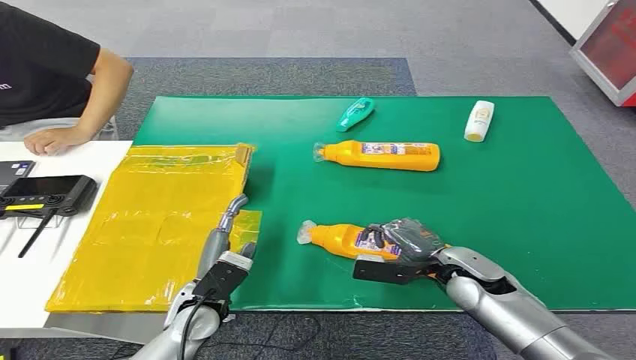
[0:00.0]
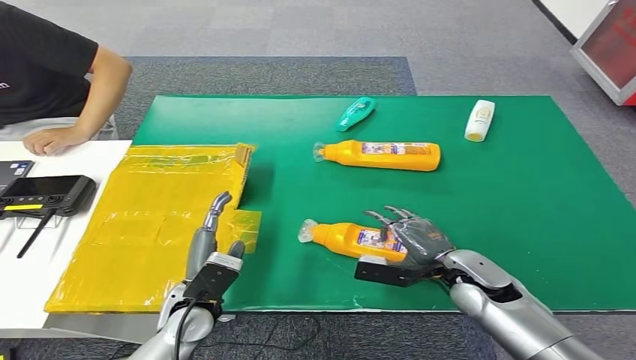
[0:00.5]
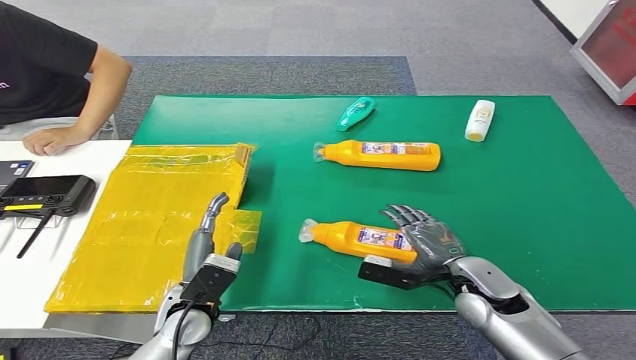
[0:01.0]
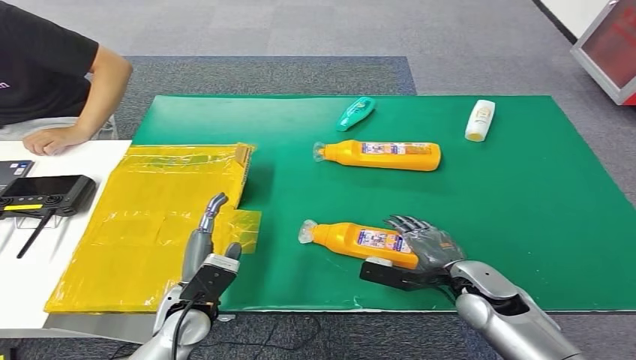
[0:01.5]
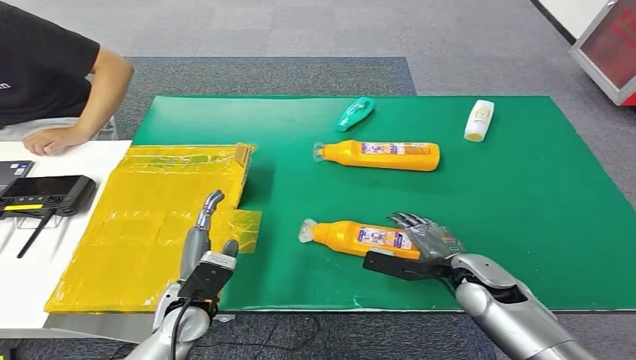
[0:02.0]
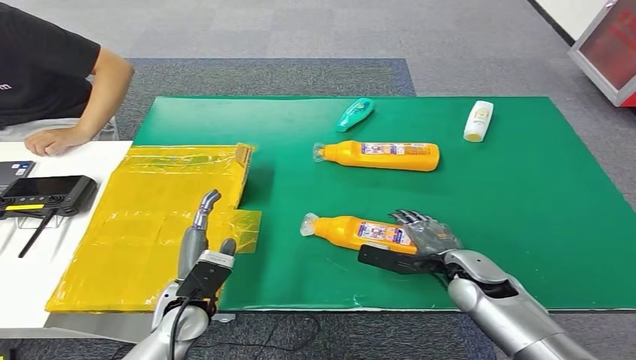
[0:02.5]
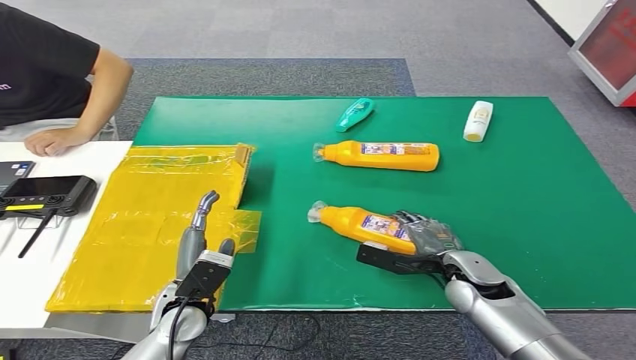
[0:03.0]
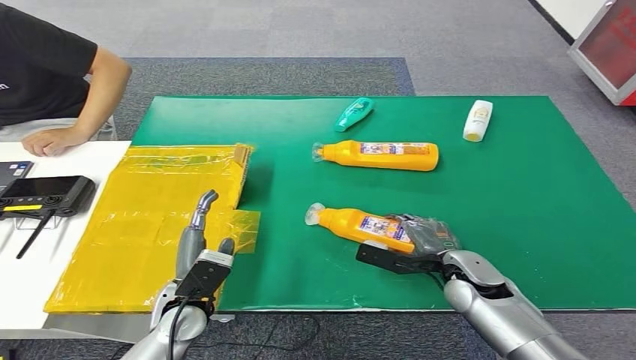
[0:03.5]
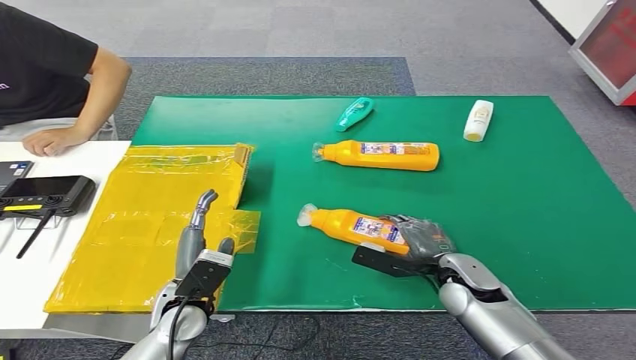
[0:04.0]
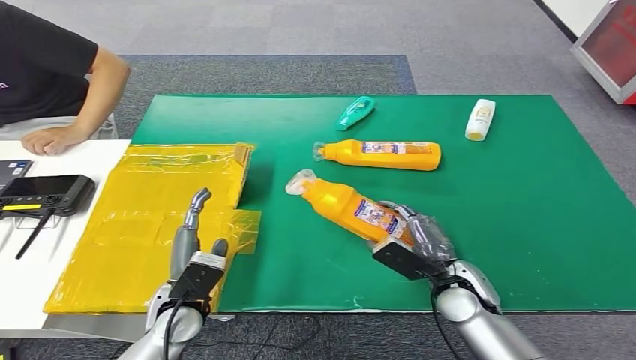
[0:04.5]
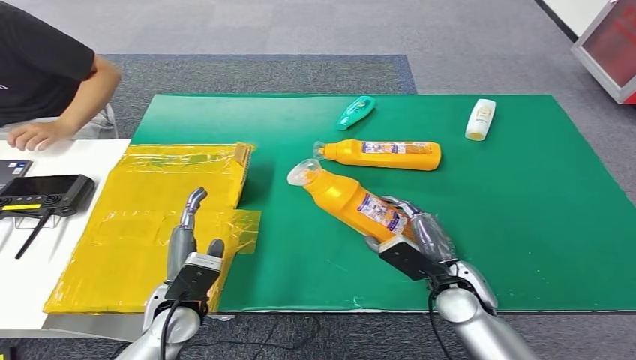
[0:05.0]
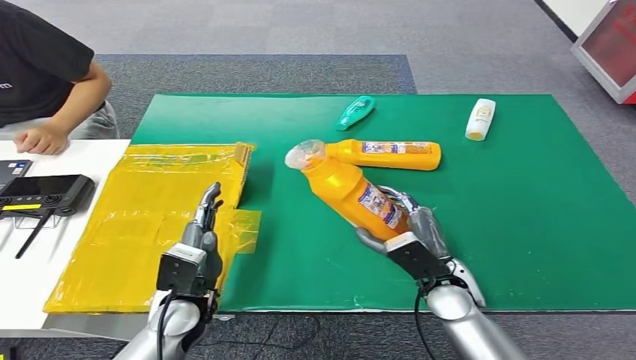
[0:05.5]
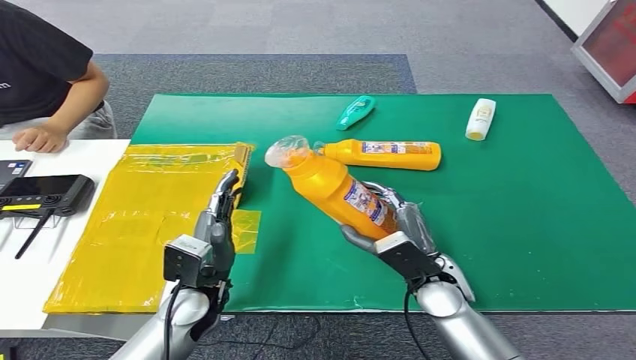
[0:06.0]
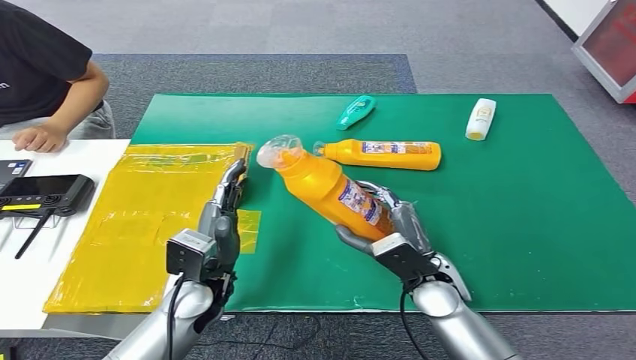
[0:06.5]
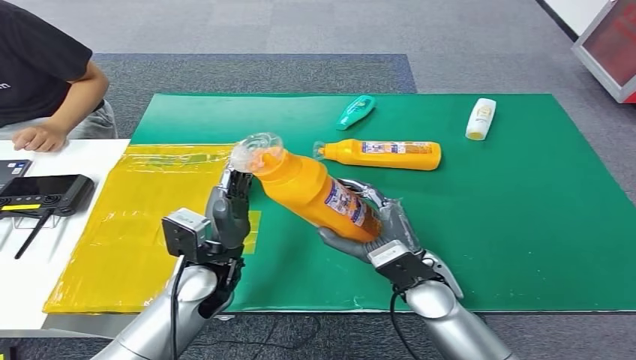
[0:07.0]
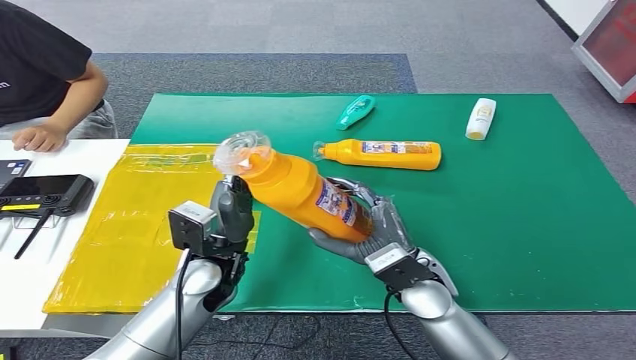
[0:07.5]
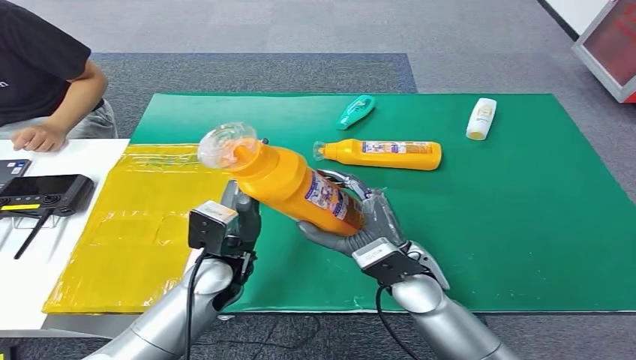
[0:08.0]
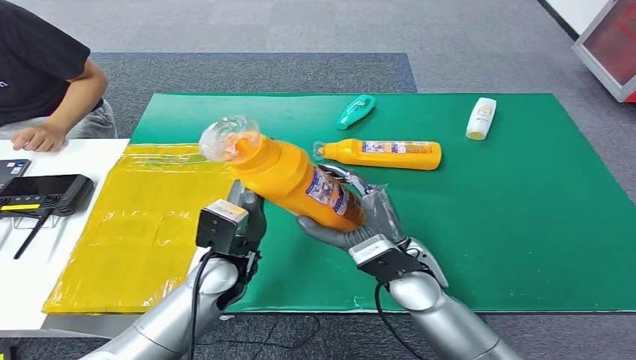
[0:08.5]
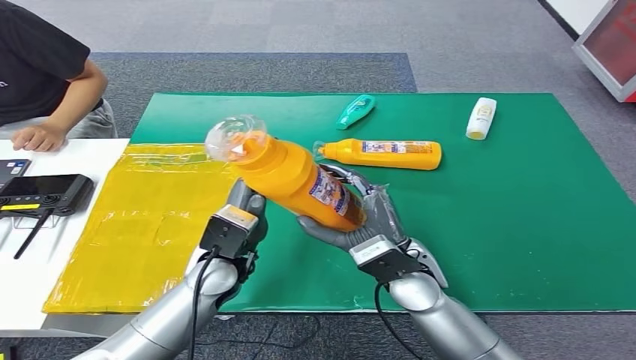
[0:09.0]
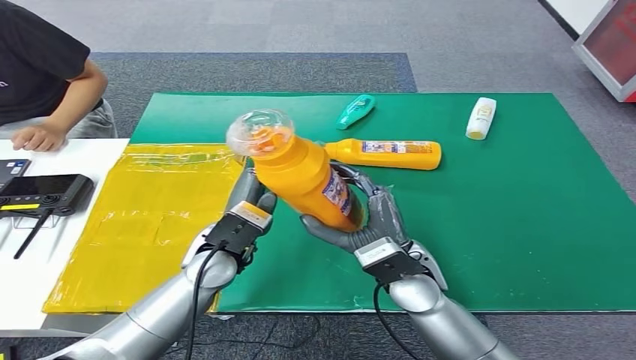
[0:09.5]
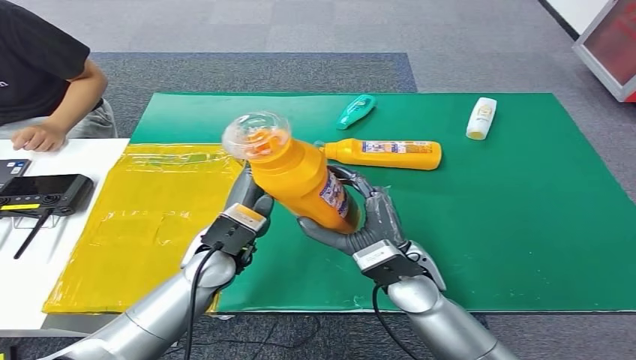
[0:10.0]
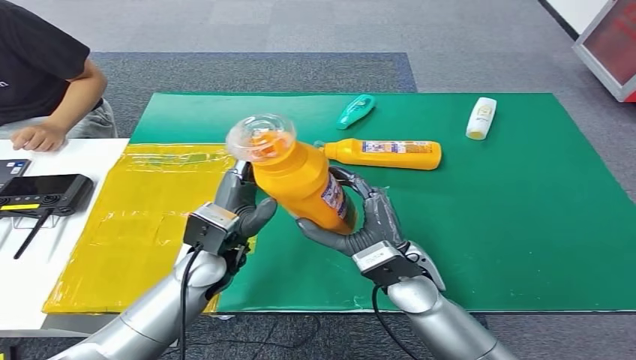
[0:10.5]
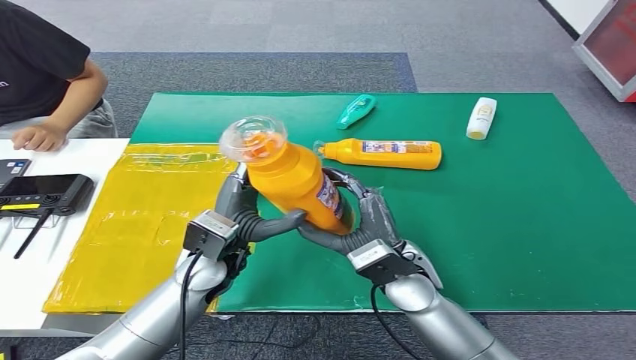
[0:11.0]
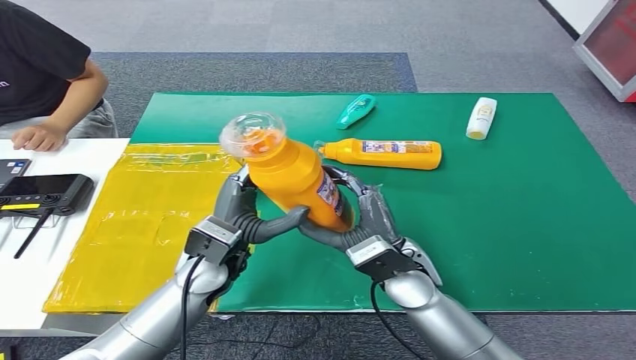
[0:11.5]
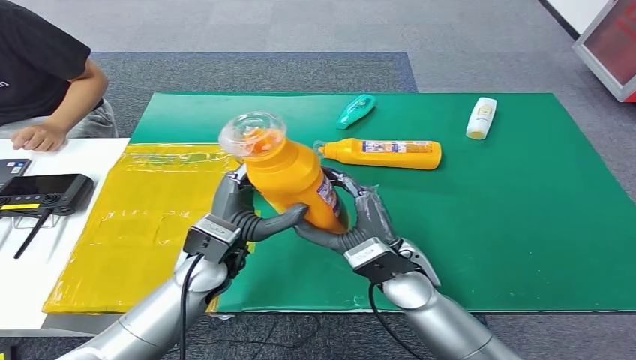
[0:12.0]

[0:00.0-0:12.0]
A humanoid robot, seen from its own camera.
Step, 0:00.0 to 0:08.0: Pick up the bottle from the table.
0:02.0 to 0:04.0: The hands make only small movements.
0:04.0 to 0:06.0: The left hand changes place by approximately 5 cm. The right hand goes some 5 cm to the left.
0:06.0 to 0:08.0: The left hand ends up roughly 5 cm from where it was, while the right hand goes about 5 cm to the left.
0:08.0 to 0:12.0: The hands move only a little.

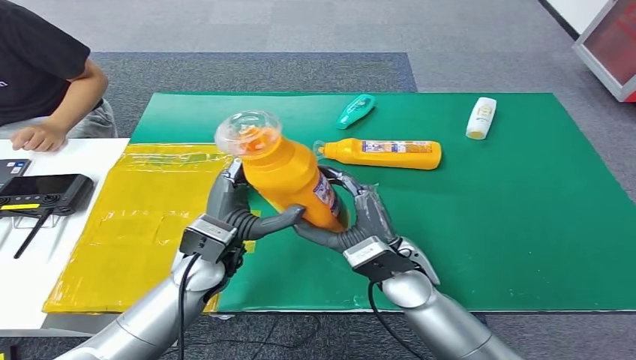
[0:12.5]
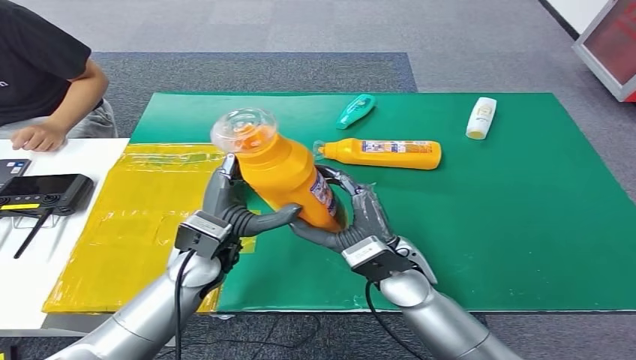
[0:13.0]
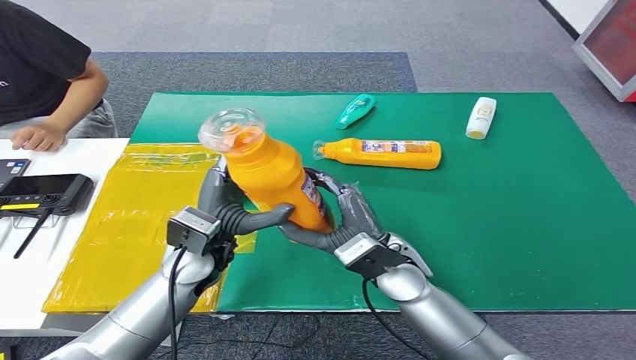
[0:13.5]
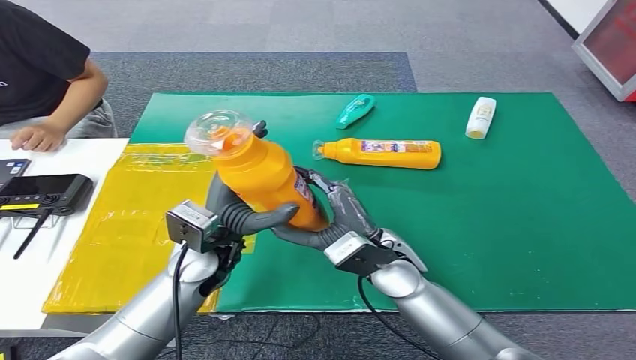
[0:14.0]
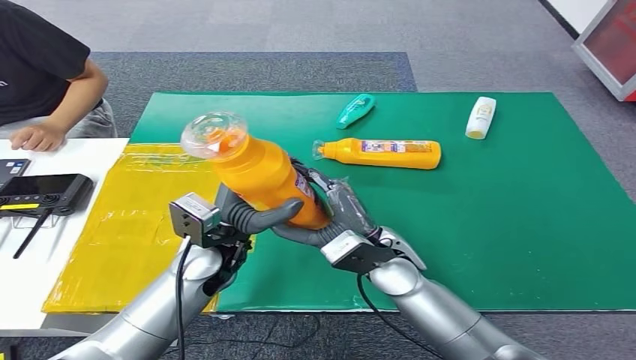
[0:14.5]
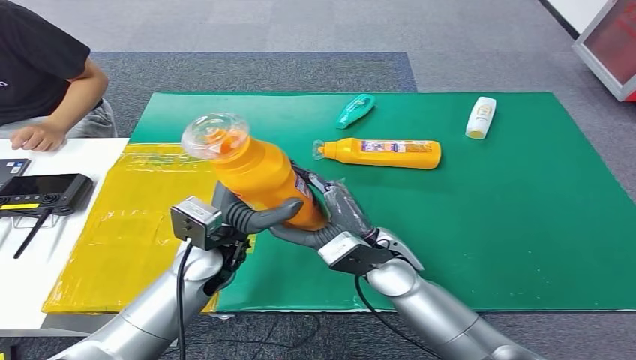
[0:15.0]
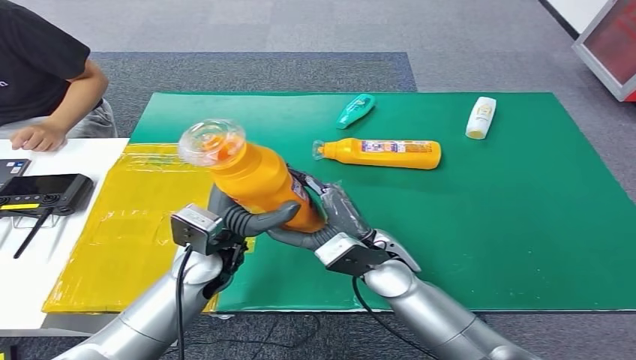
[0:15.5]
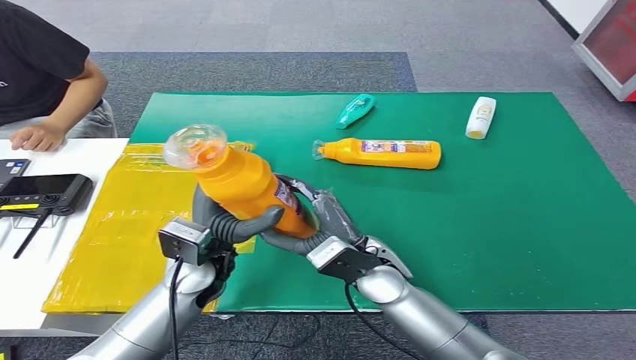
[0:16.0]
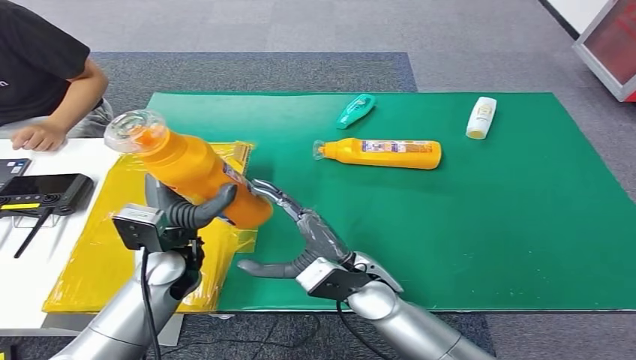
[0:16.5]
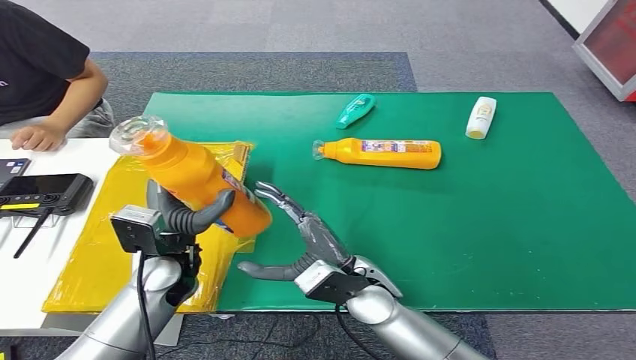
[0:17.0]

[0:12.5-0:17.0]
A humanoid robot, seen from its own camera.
Step, 0:12.5 to 0:17.0: Turn the bottle to the front side.
0:12.5 to 0:14.5: The hands make only small movements.
0:14.5 to 0:17.0: The right hand changes place by approximately 5 cm, while the left hand shifts approximately 5 cm to the left.
